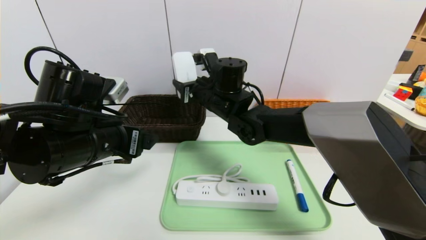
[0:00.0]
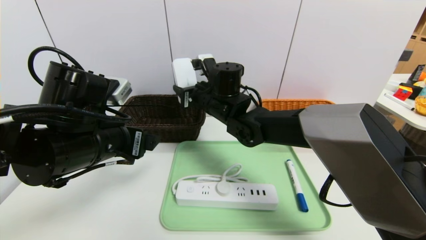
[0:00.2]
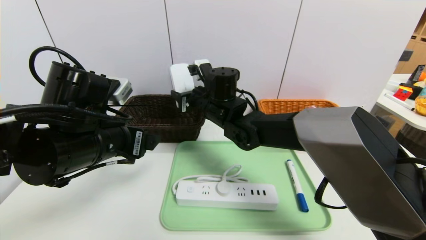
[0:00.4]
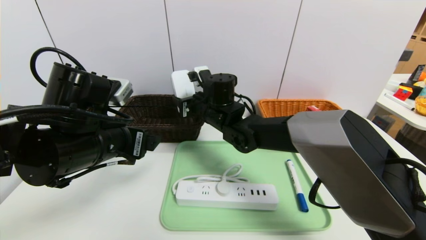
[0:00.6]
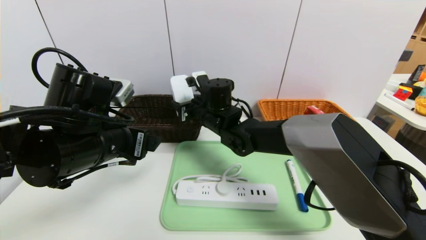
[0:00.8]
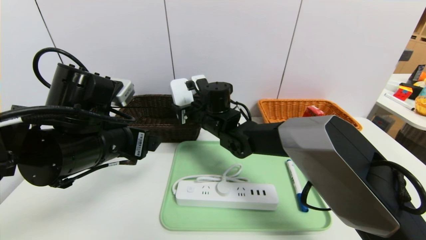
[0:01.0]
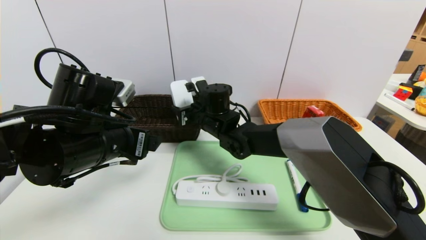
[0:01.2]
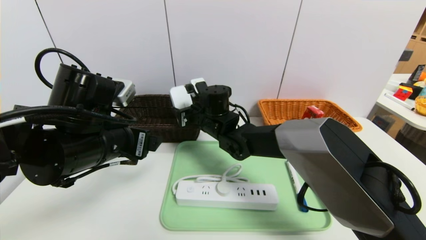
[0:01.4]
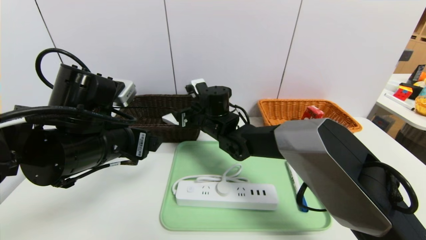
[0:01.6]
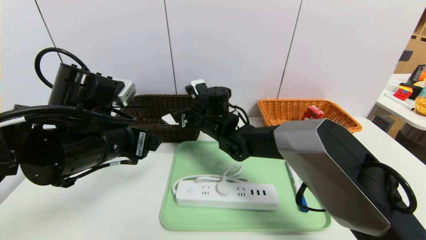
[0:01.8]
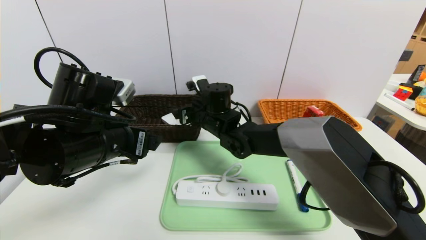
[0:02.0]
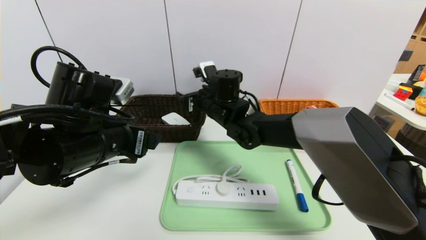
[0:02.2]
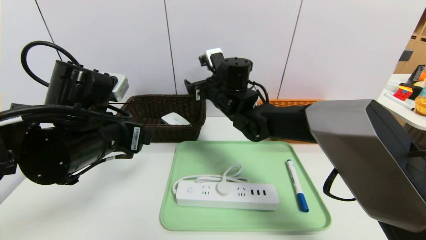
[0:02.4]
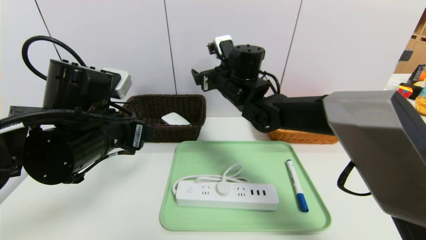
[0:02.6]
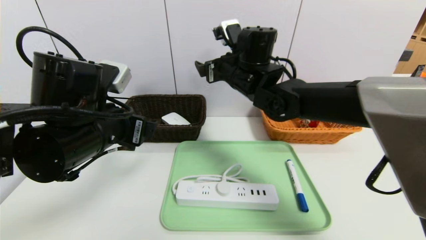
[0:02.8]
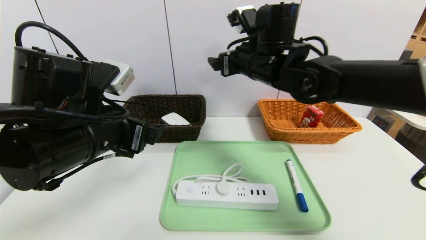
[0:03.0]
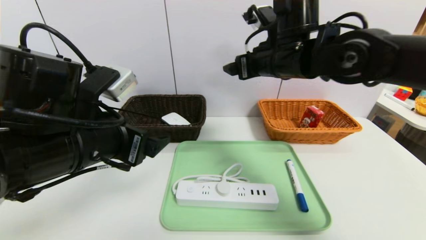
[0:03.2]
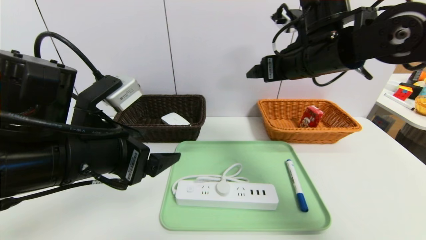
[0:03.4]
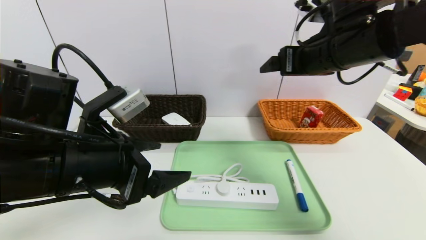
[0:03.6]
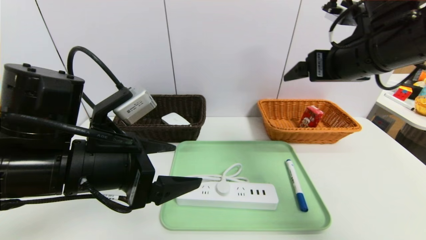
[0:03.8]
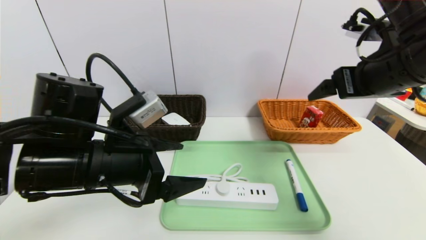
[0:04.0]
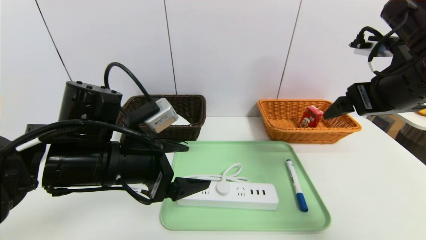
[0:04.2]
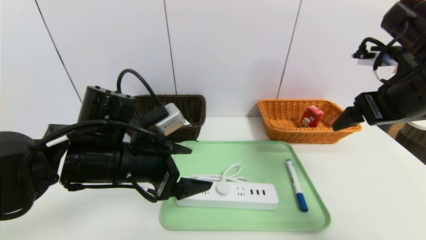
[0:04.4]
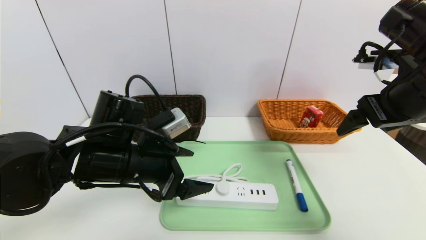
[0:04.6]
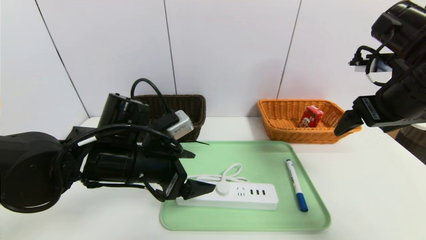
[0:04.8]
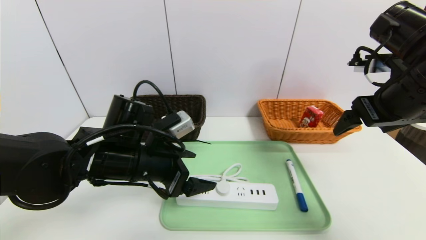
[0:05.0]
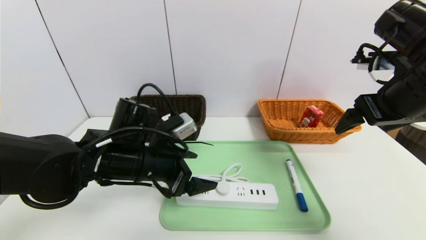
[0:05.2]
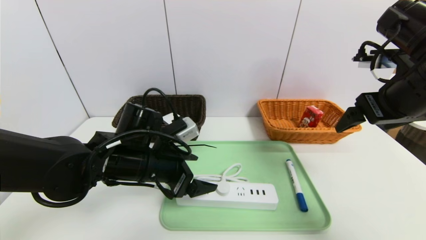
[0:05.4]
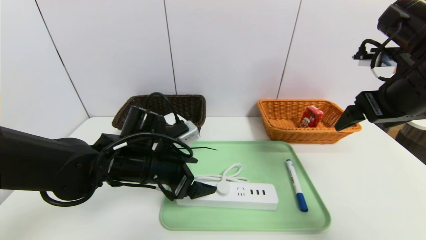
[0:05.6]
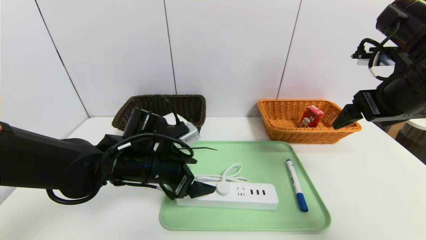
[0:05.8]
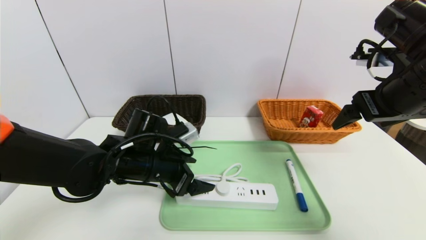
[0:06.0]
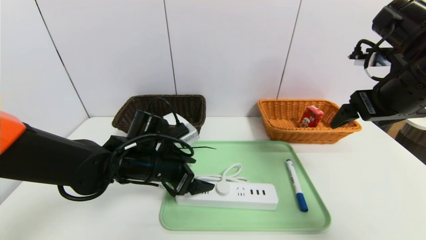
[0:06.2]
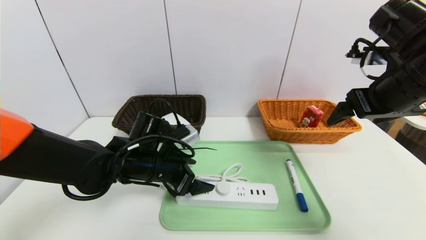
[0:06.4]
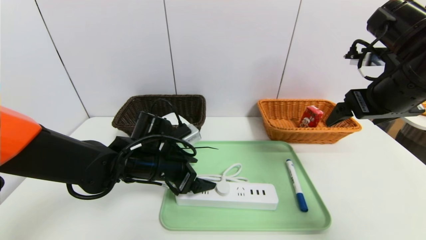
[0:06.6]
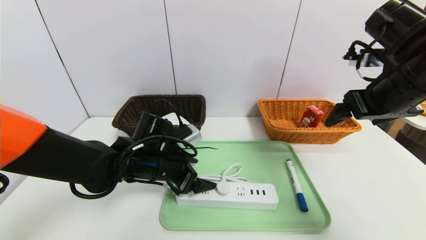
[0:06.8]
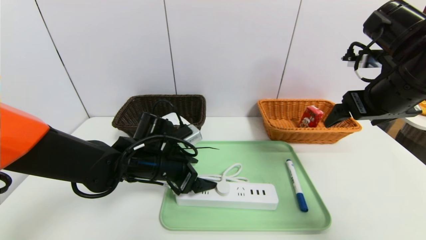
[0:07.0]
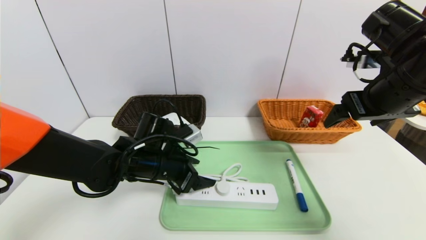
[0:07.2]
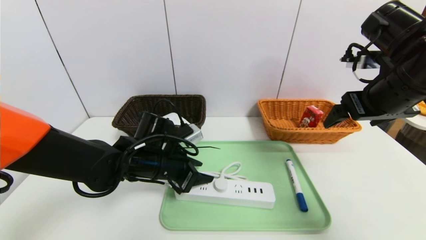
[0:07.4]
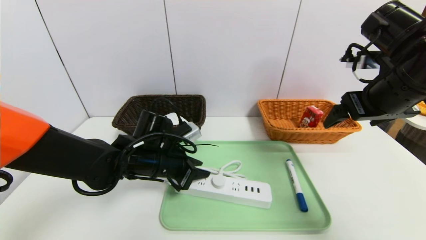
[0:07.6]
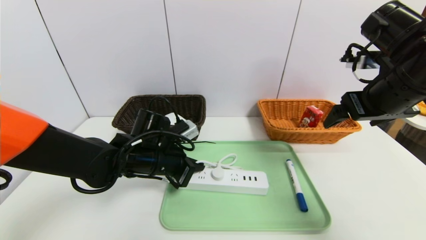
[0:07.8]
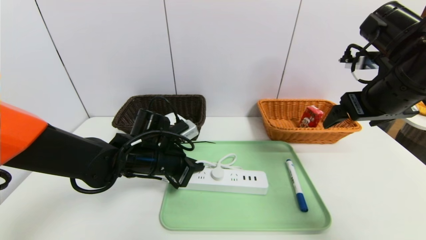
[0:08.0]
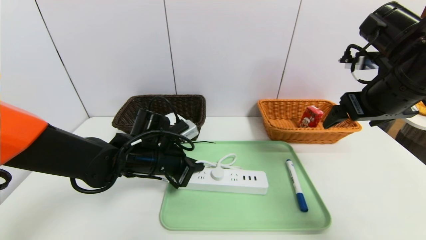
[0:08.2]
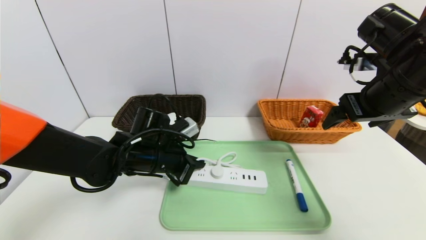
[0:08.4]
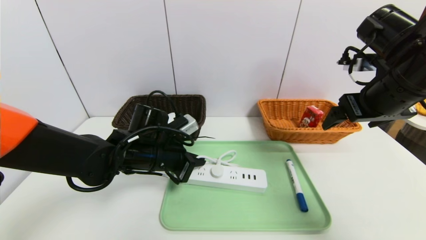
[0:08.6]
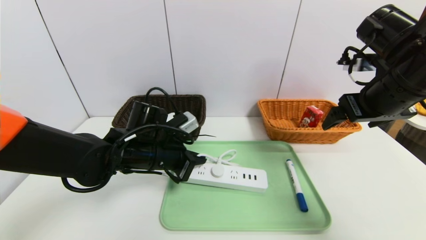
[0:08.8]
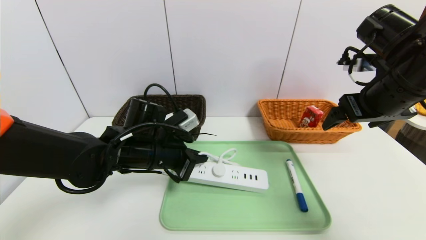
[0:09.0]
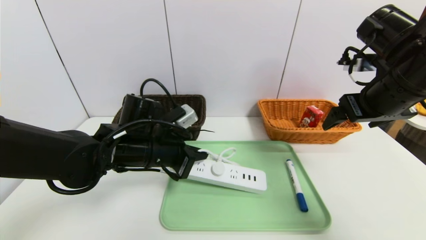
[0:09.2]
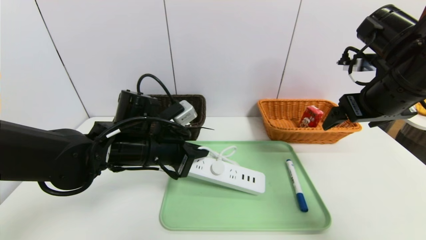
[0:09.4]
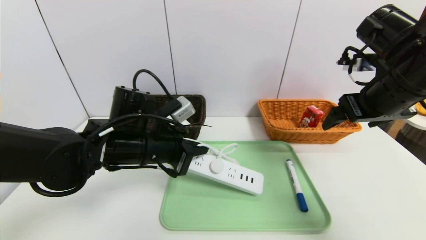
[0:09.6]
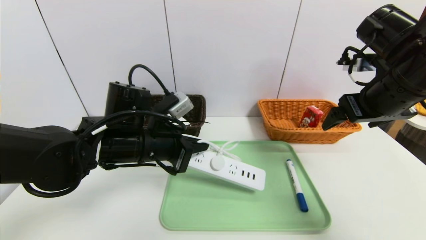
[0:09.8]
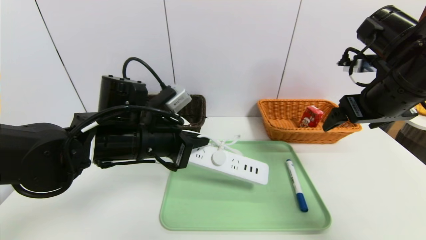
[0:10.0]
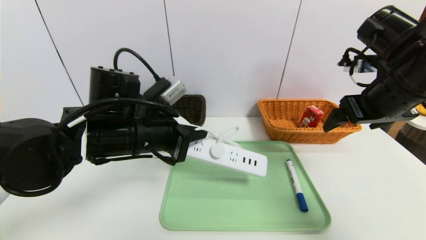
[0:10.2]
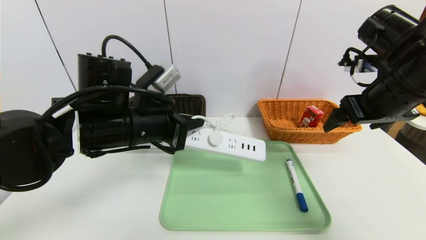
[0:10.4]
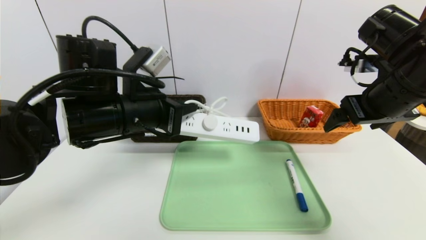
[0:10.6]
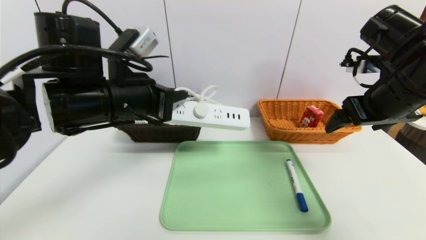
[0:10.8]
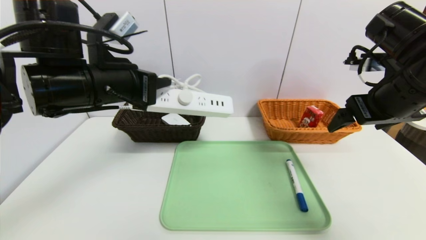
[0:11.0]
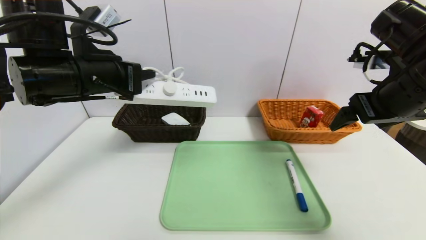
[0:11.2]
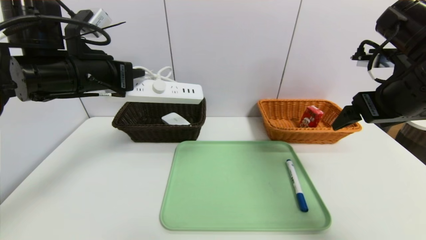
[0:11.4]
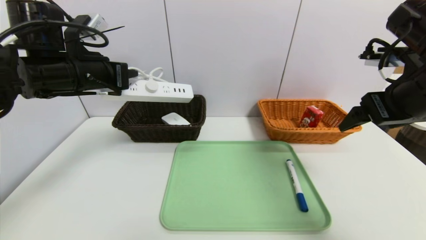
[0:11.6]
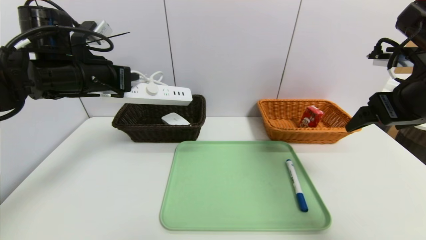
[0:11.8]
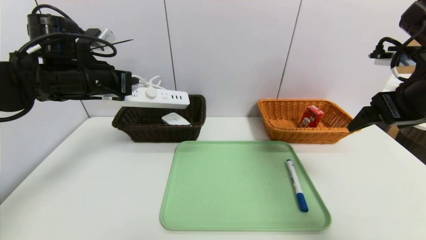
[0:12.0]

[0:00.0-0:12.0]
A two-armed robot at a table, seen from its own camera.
Task of the whole recording: place the food in the right basket with the right gripper, and place the non food items in the left basket with the left gripper.
0:00.0 to 0:01.6: The right gripper goes about 5 cm downward.
0:01.6 to 0:03.0: The right gripper heads upward and to the right, covering about 20 cm.
0:03.0 to 0:04.4: The left gripper is displaced downward by roughly 5 cm. The right gripper moves to the right and backward, about 20 cm.
0:04.4 to 0:06.0: The left gripper moves downward and forward, about 10 cm.
0:06.0 to 0:07.6: The left gripper closes up.
0:07.6 to 0:09.0: The grippers move only a little.
0:09.0 to 0:10.4: The left gripper travels upward by roughly 10 cm.
0:10.4 to 0:12.0: The left gripper shifts about 15 cm to the left and forward.

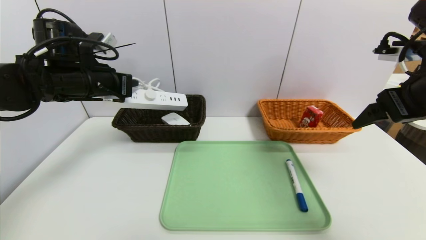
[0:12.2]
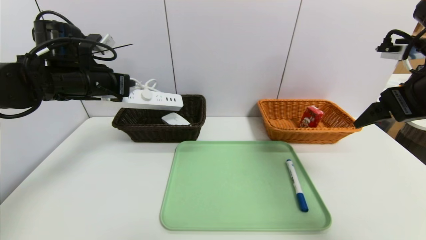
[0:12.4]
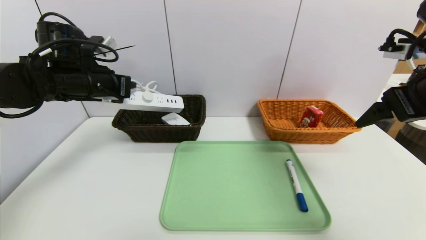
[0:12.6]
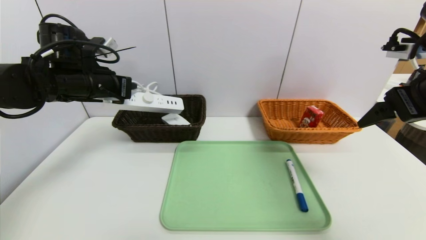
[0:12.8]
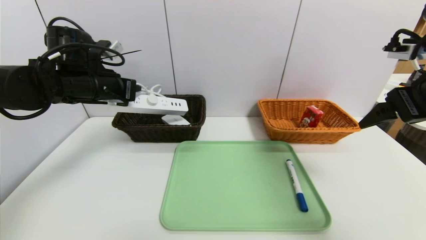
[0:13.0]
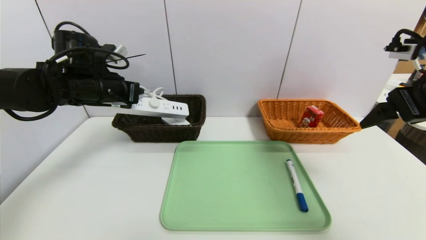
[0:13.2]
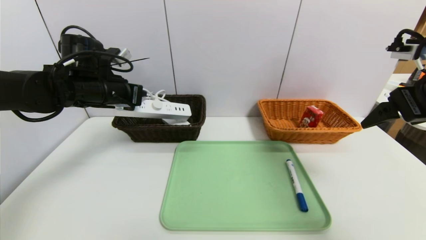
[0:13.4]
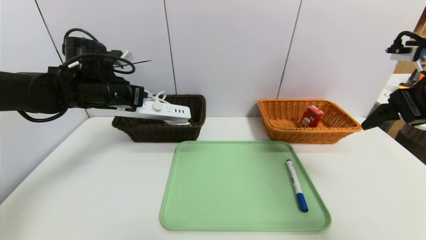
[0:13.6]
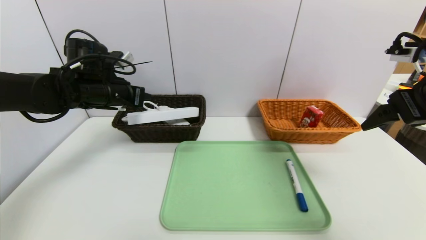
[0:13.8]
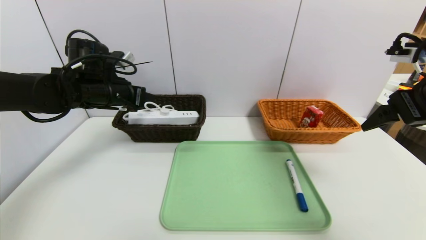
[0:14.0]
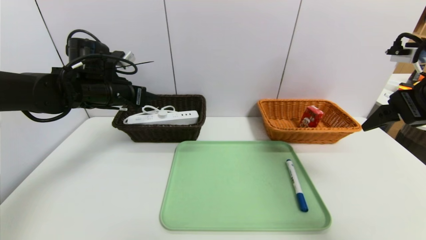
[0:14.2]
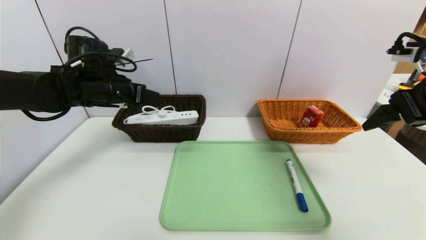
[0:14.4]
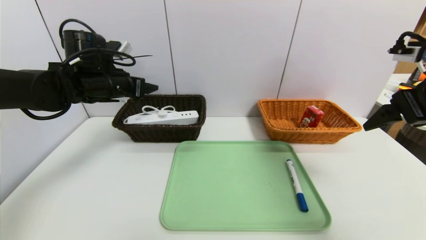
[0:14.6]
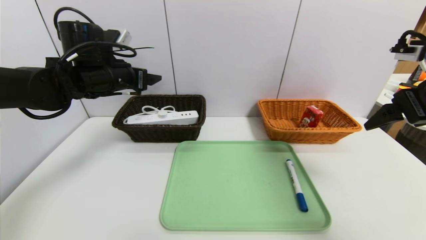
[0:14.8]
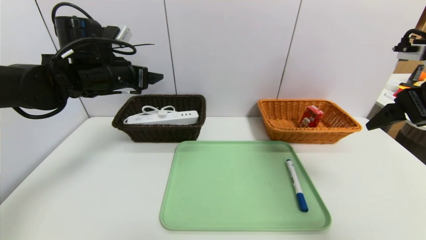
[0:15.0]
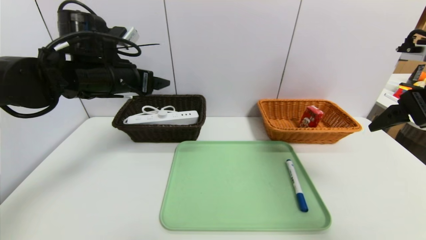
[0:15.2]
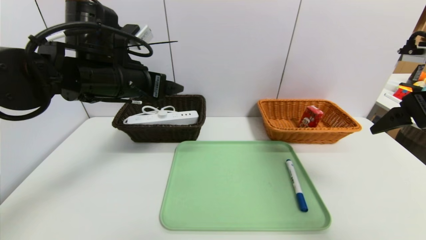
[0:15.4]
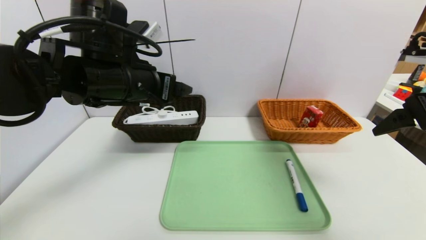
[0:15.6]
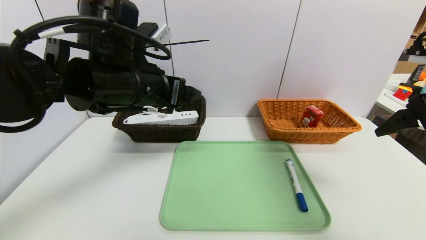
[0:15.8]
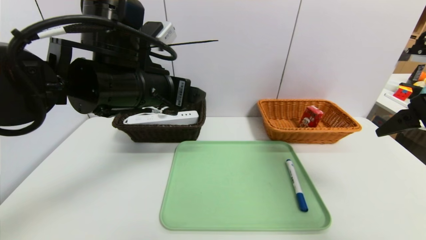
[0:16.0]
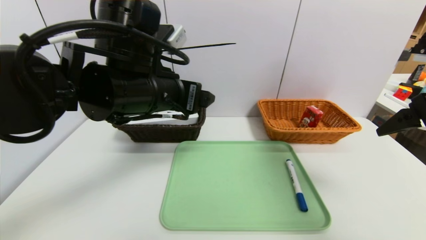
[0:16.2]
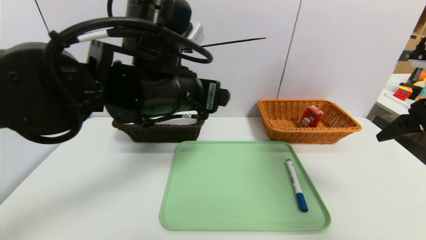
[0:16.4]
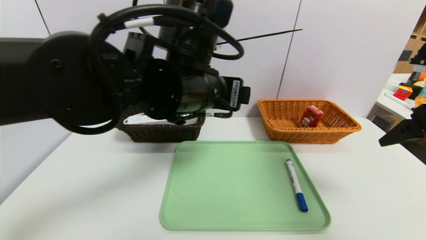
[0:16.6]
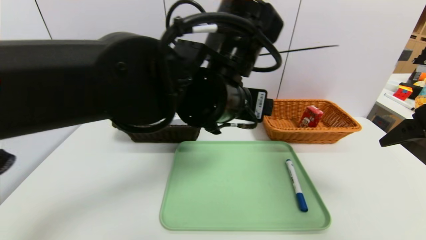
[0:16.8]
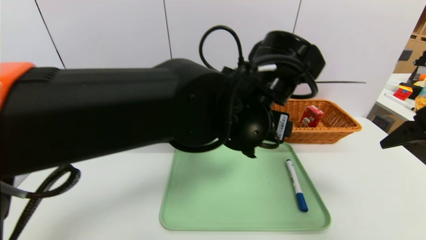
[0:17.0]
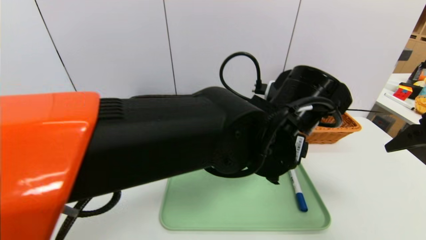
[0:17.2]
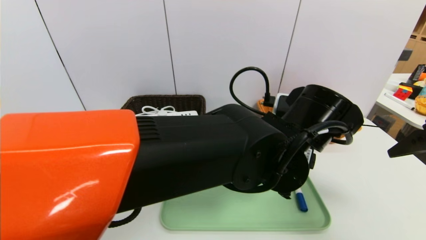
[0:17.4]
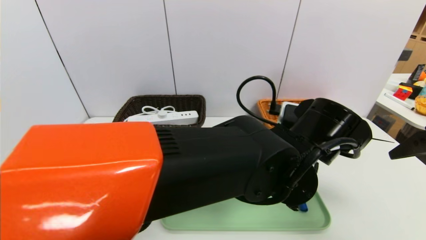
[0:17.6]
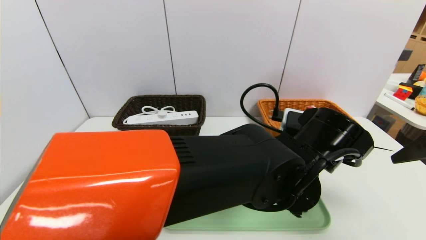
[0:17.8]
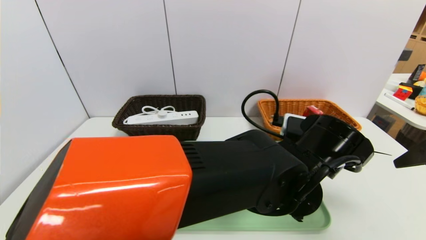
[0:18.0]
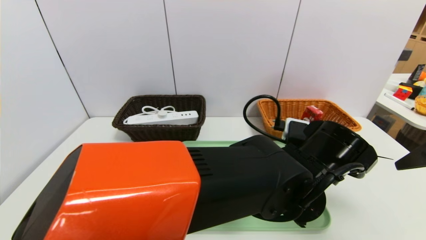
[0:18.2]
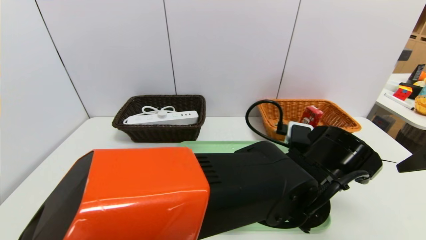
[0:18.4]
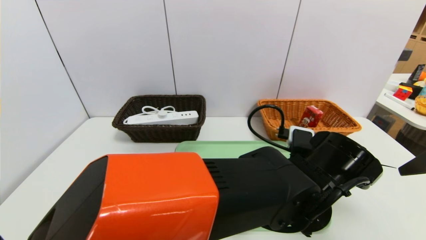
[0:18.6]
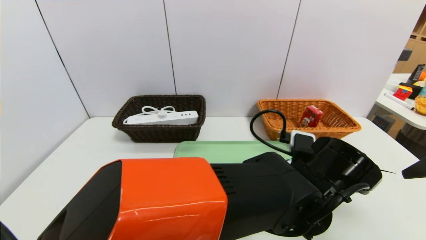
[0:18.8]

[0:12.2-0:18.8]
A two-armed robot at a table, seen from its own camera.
Task of the whole recording: place the food in the right basket with the right gripper, and place the non food items in the left basket with the left gripper.
Step, 0:12.2 to 0:15.0: Grasp the power strip and put it in the left basket.
0:12.2 to 0:13.8: The grippers make only small movements.
0:13.8 to 0:15.4: The left gripper travels to the right, backward and upward by roughly 10 cm, and opens up.
0:15.4 to 0:17.2: The left gripper goes about 25 cm to the right.
0:17.2 to 0:18.8: The left gripper is displaced downward and to the right by some 10 cm.
